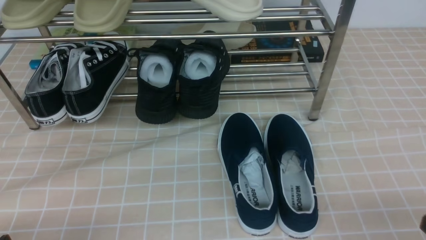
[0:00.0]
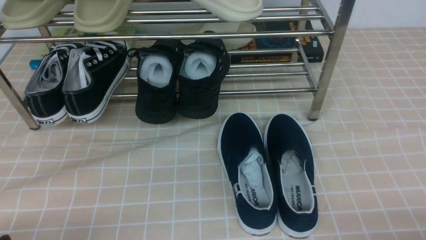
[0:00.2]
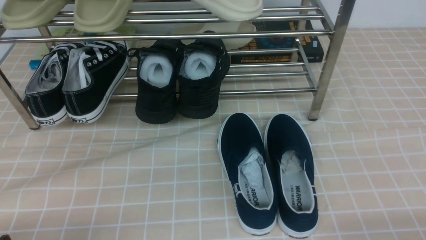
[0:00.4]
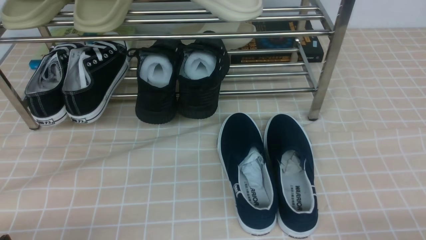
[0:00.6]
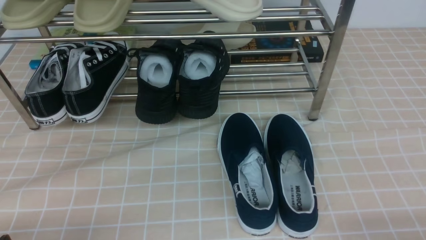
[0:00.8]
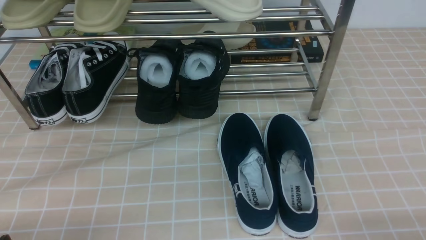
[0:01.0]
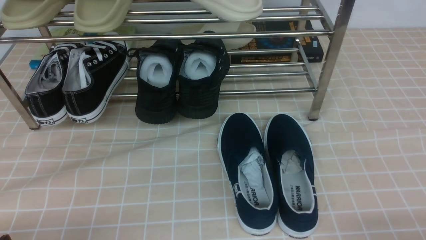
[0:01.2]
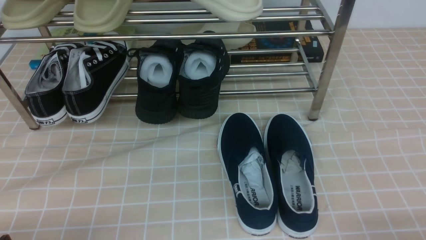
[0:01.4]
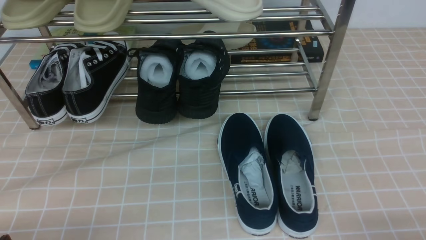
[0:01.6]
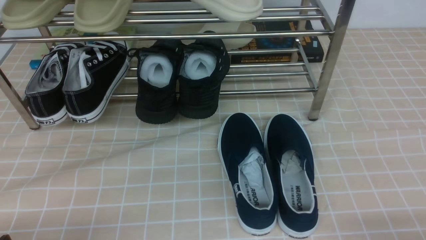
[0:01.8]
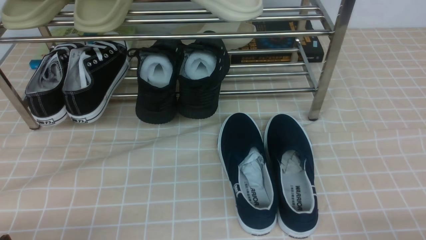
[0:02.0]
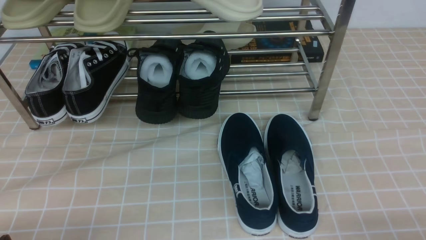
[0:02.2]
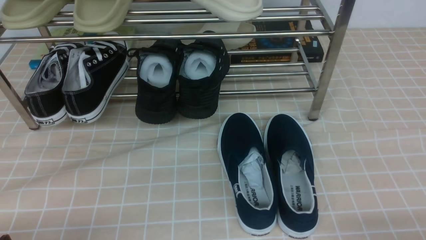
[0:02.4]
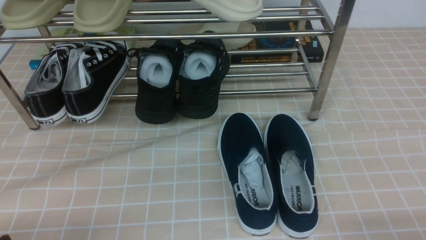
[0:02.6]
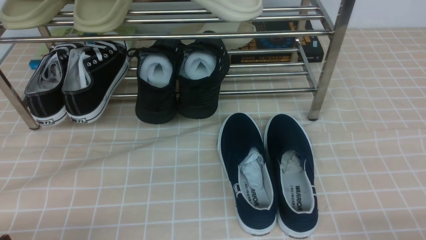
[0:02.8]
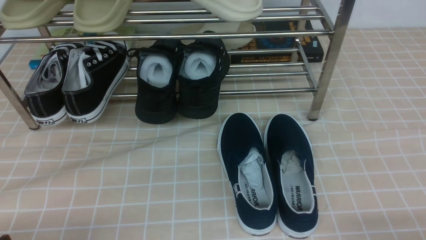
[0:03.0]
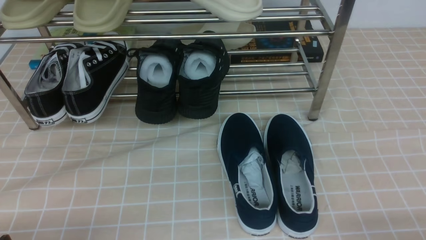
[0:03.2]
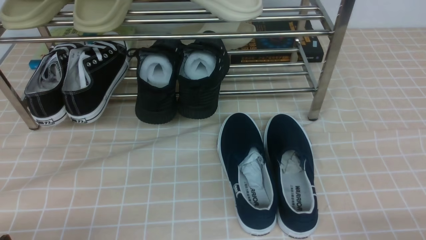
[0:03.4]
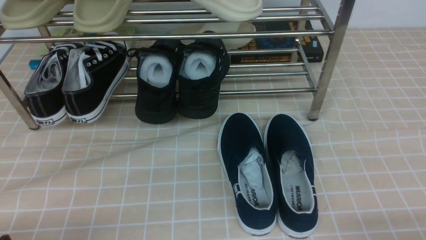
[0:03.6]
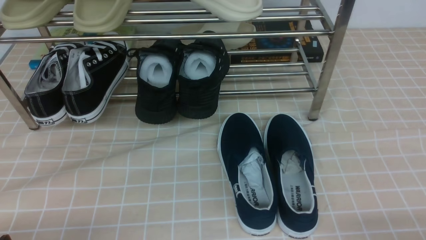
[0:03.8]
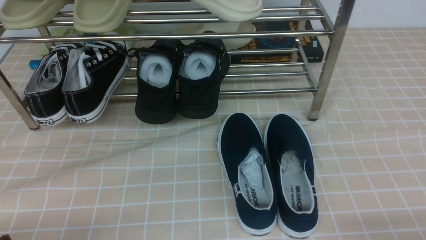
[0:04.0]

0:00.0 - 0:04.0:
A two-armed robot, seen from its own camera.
0:01.4 - 0:04.0: Both grippers stay put.

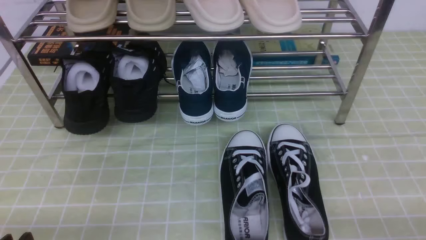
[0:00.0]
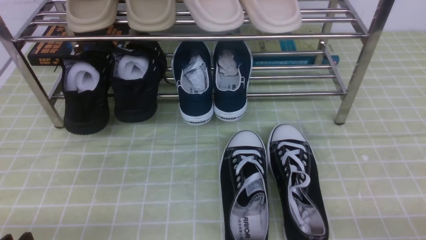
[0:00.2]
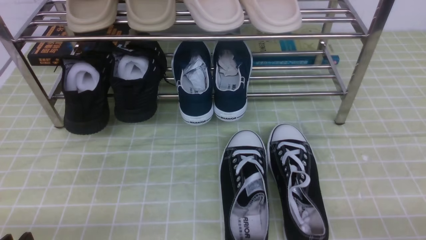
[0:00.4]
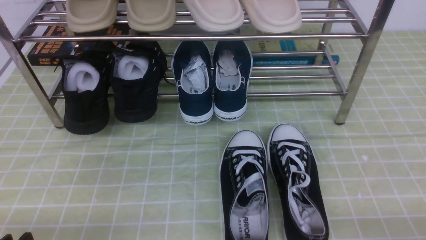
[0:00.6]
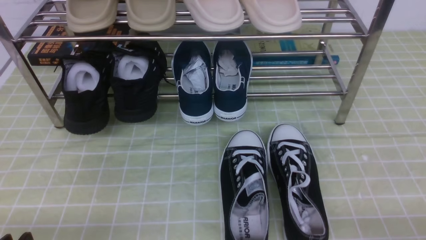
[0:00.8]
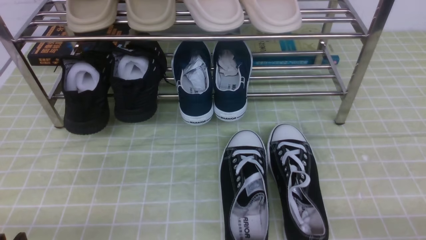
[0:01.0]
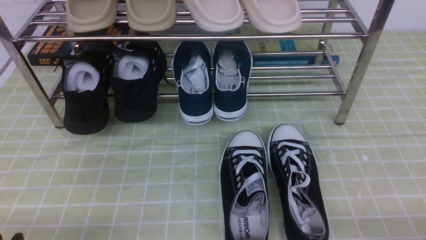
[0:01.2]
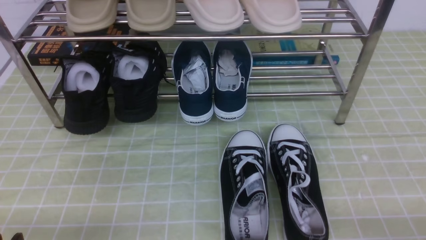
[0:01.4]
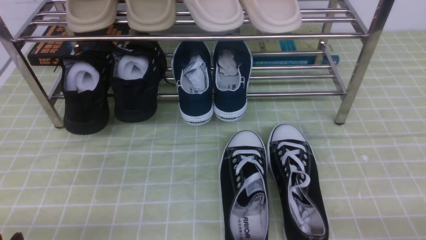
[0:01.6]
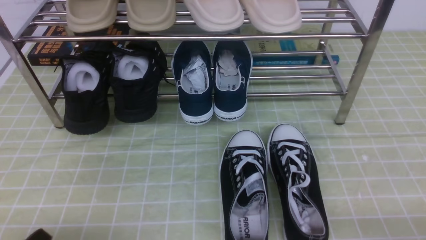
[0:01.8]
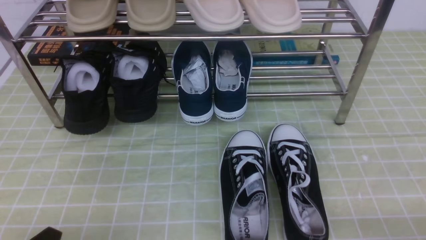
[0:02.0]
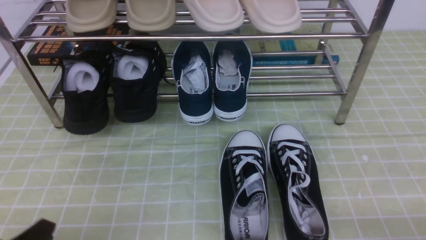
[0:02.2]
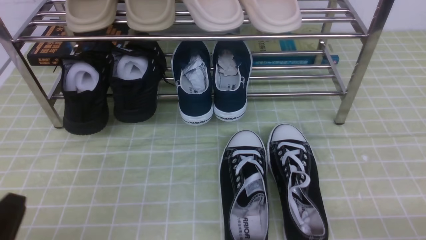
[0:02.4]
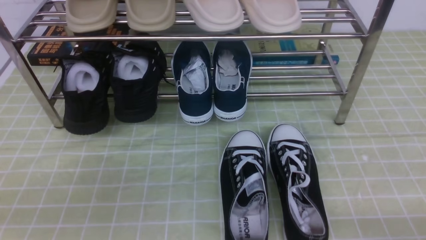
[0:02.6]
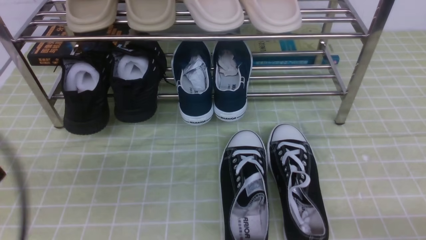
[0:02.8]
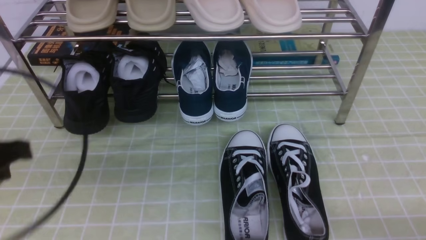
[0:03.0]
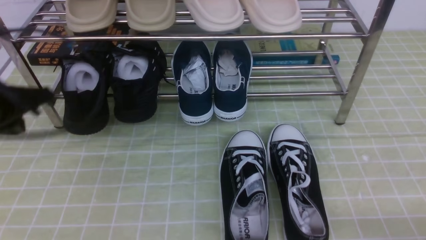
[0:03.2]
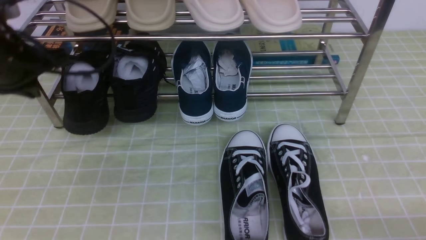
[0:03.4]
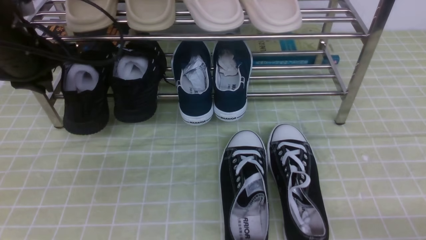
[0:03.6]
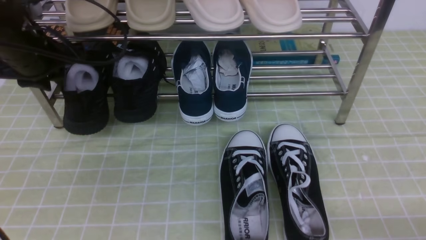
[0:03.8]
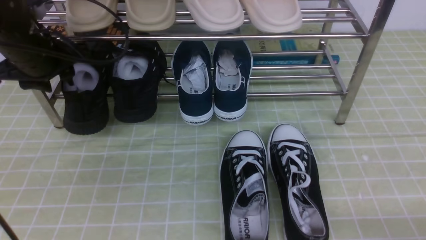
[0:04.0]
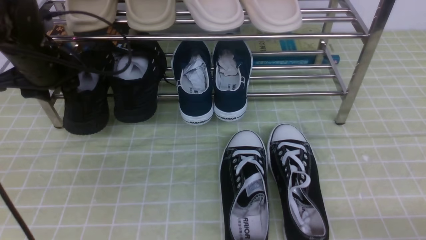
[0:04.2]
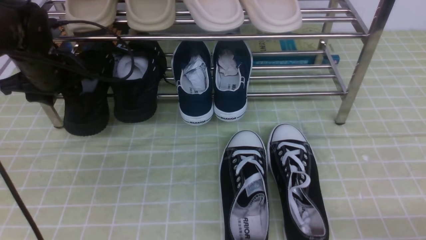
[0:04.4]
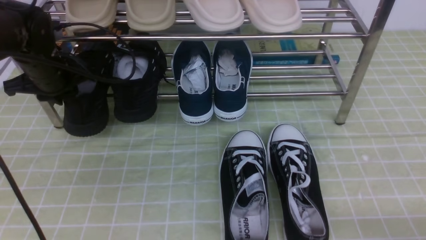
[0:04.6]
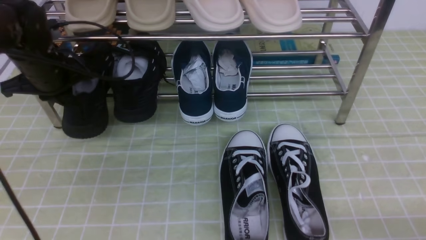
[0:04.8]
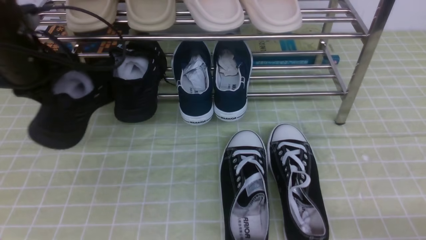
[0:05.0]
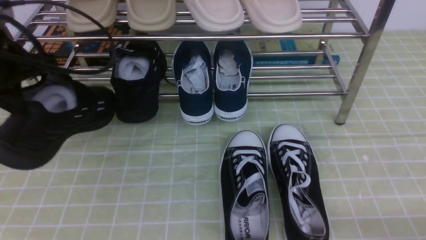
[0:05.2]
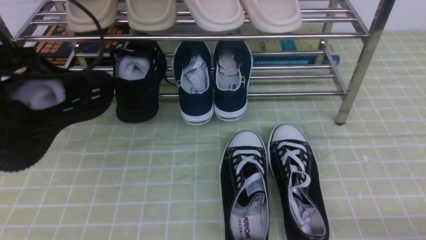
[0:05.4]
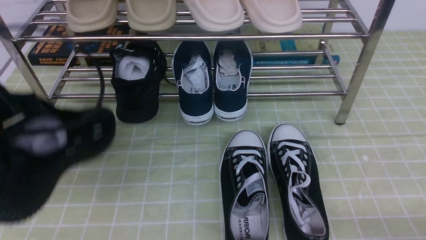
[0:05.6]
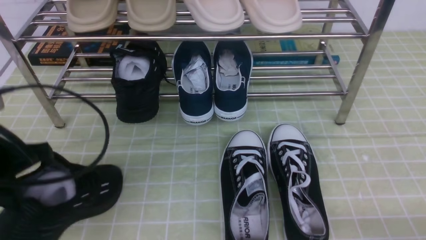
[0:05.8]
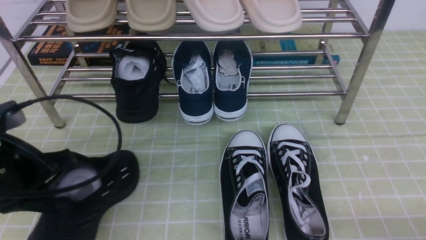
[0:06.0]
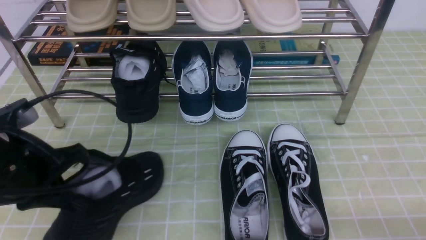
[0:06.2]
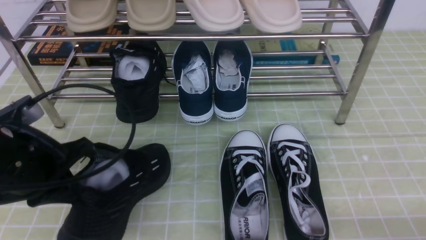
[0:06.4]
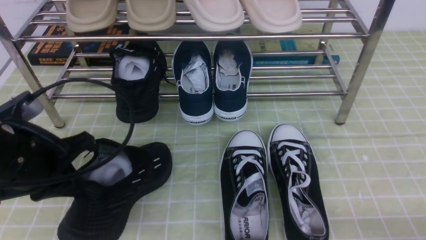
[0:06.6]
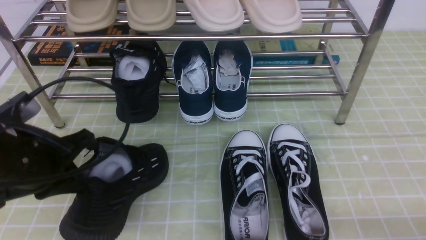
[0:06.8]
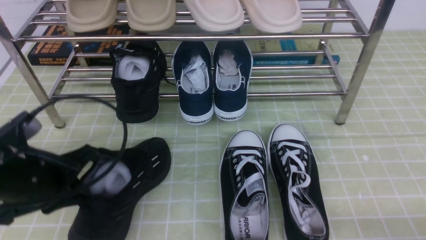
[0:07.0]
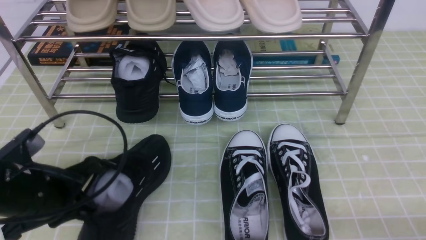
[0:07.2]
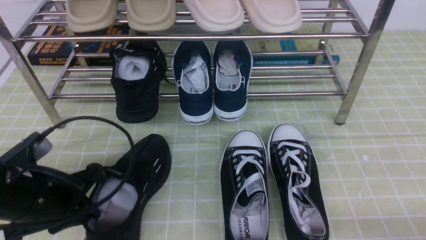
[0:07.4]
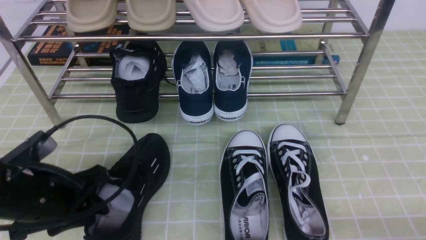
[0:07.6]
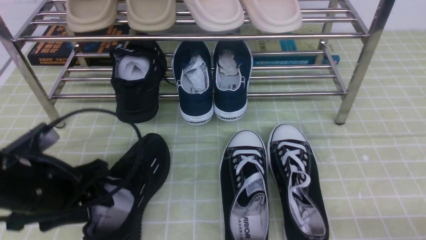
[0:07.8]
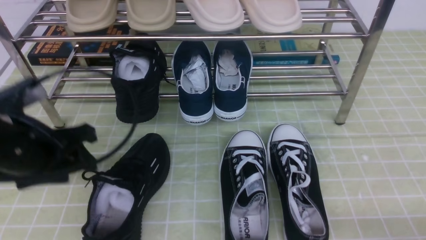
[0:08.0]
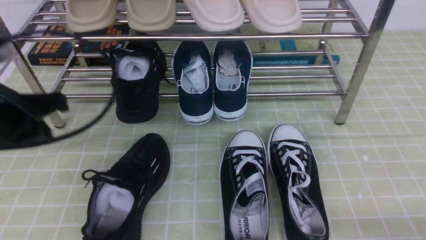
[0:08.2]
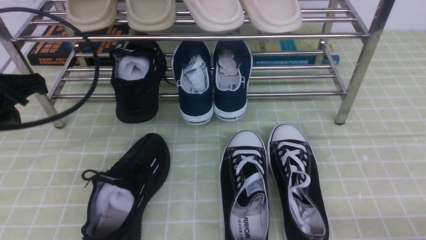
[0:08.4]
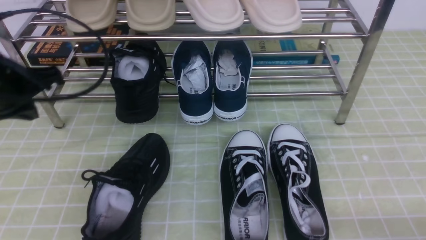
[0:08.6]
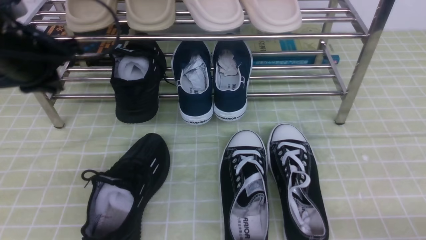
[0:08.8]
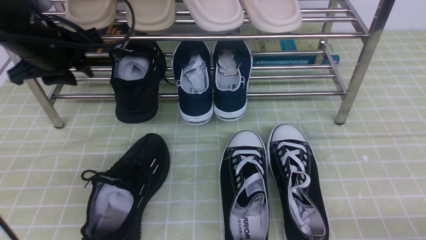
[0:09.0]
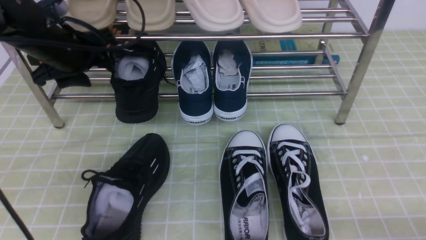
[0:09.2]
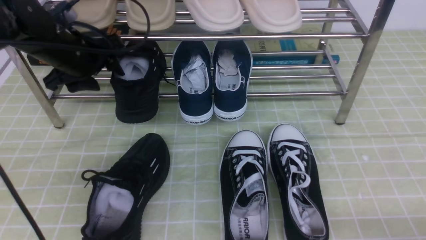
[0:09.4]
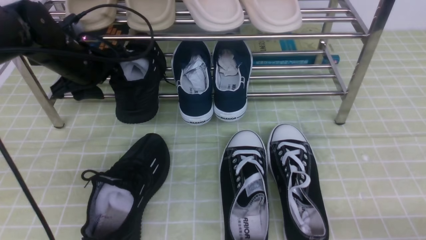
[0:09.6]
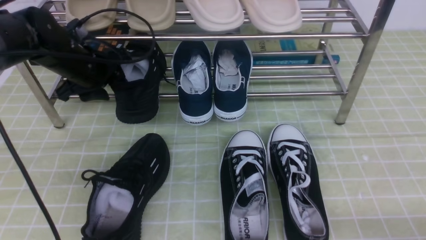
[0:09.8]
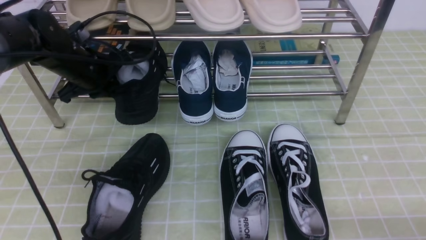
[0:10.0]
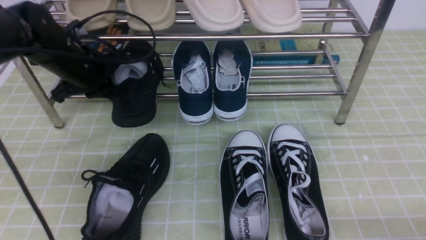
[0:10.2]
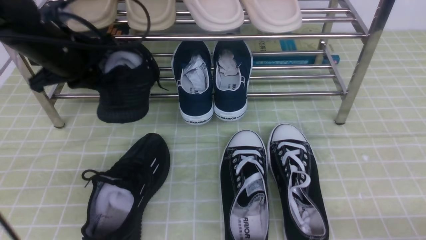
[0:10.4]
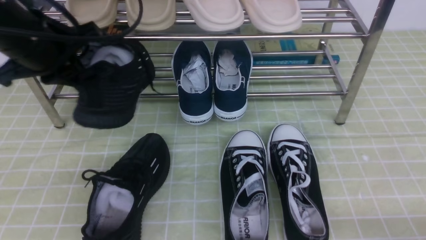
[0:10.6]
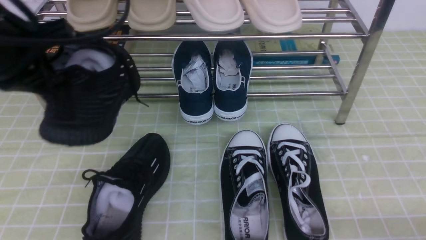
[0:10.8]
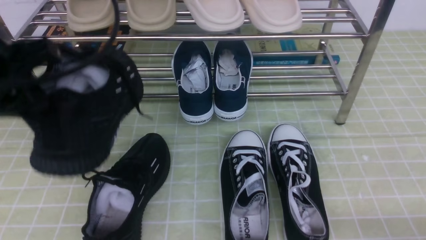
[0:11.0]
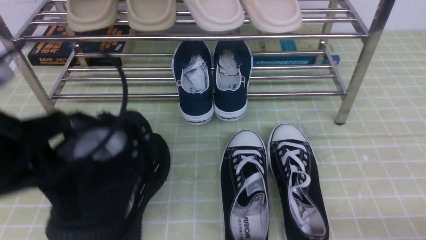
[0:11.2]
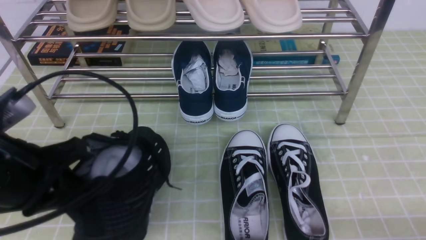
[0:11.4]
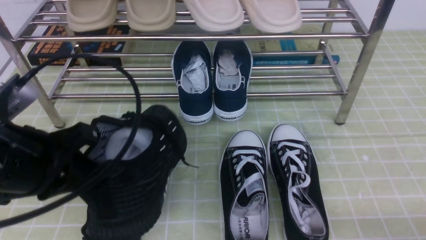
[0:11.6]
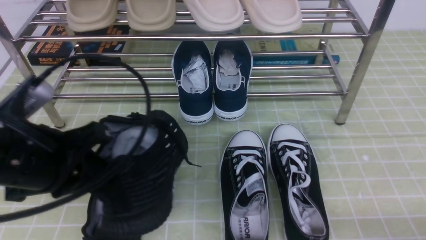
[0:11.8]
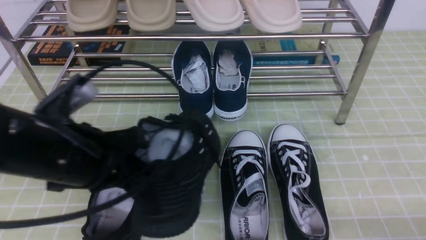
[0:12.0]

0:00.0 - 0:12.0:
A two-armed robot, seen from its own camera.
Step, 0:00.0 - 0:04.8: use the left arm to clamp a shoe on the left side of the shoe rack.
Step, 0:05.0 - 0:07.6: Use your left arm to remove the clamped shoe from the shoe rack and put it down.
Step, 0:08.0 - 0:09.8: use the left arm to clamp a shoe on the left side of the shoe rack.
0:01.6 - 0:03.0: The left gripper travels upward and forward by roughly 20 cm, and closes its fingers.
0:03.0 - 0:04.4: The left gripper heads forward, covering about 20 cm, and opens its fingers.
0:04.4 - 0:06.0: The left gripper shifts some 20 cm backward, and closes.
0:06.0 - 0:07.6: The left gripper goes approximately 5 cm downward, and opens.
0:07.6 - 0:09.0: The left gripper is displaced forward and upward by roughly 20 cm, and closes, then opens again.
0:09.0 - 0:10.4: The left gripper closes its fingers.
0:10.4 - 0:12.0: The left gripper goes about 15 cm backward.

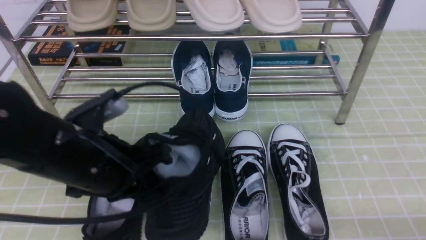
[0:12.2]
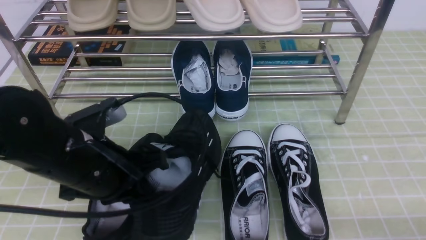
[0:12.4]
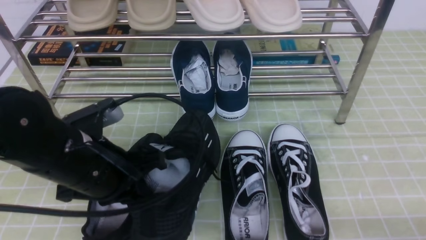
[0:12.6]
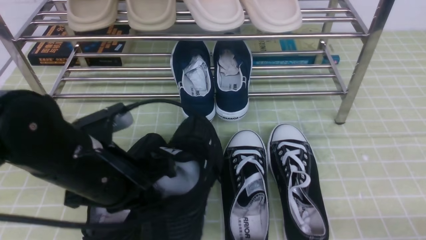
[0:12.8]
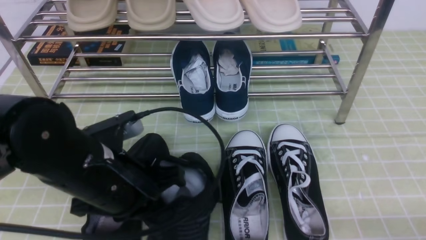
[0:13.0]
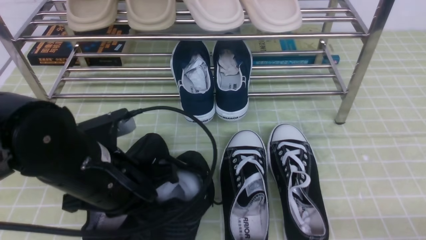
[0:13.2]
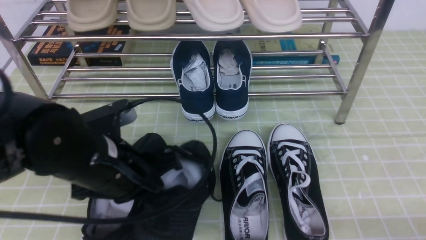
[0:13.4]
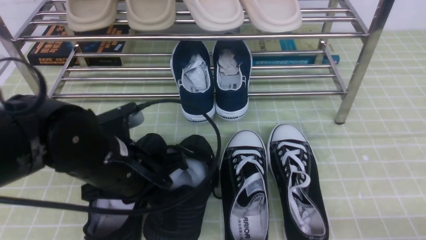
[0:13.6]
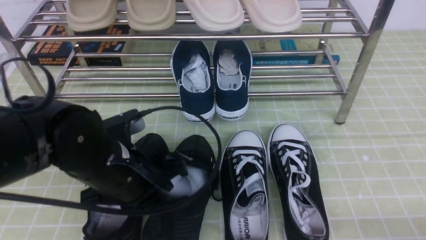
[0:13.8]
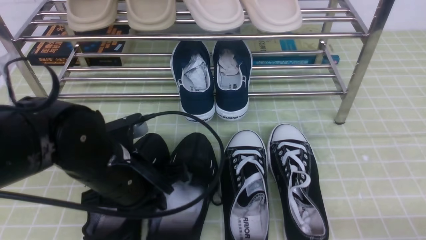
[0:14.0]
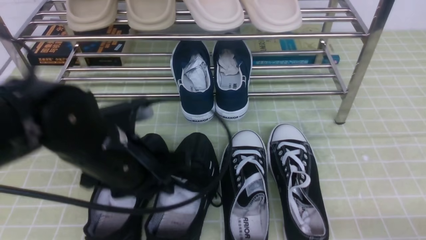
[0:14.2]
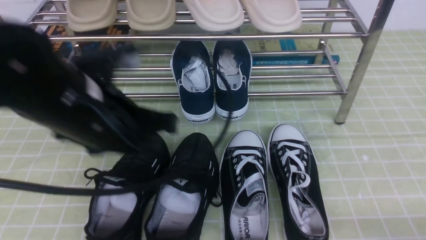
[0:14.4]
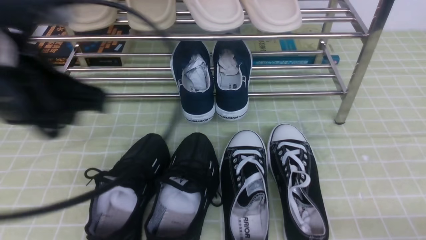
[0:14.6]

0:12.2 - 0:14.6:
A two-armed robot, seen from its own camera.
Step, 0:12.2 - 0:14.2: Use your left arm to remove the clamped shoe from the shoe rack and put it down.
0:12.2 - 0:13.4: The grippers stay close to where they were, moving slightly.
0:13.4 - 0:14.6: The left gripper moves upward, about 15 cm.
